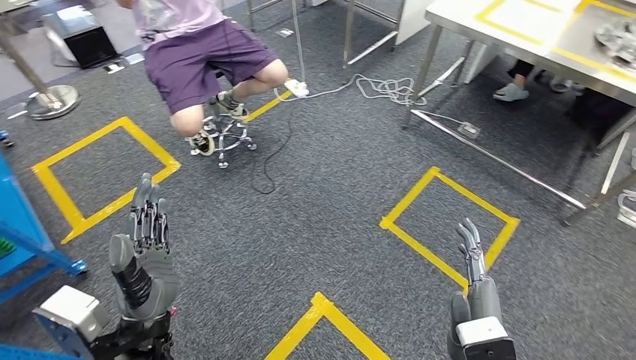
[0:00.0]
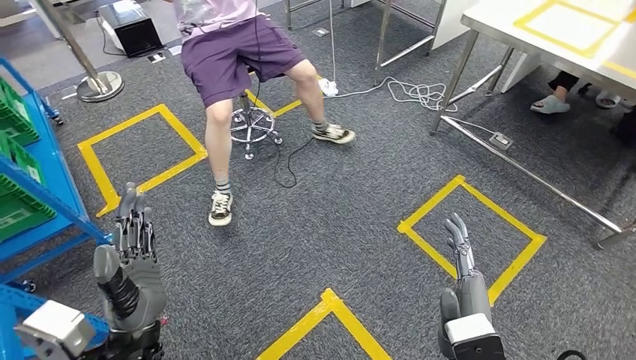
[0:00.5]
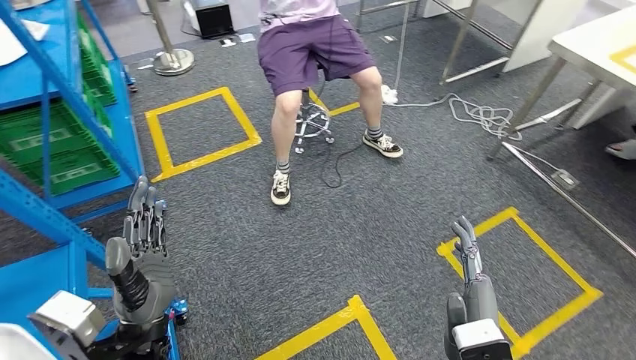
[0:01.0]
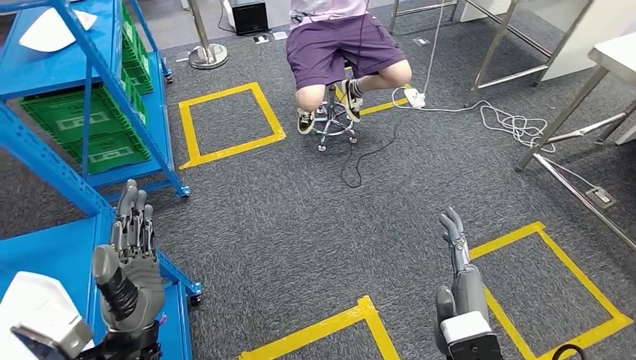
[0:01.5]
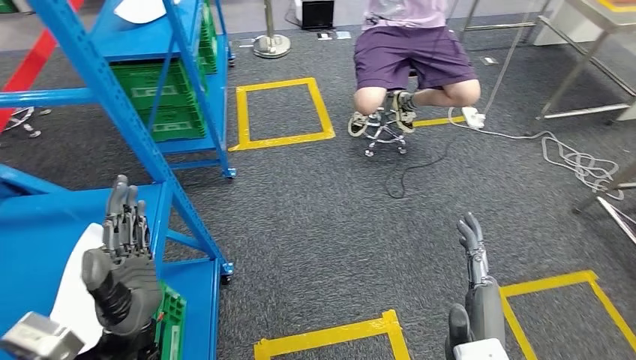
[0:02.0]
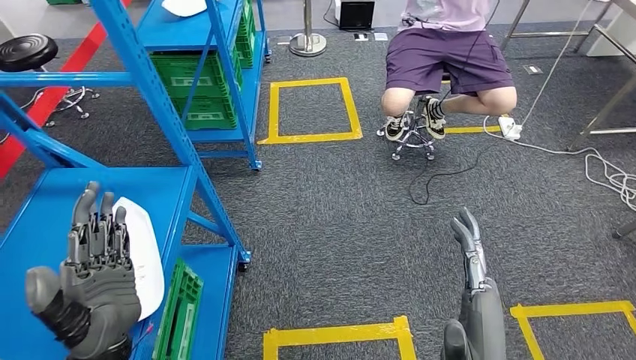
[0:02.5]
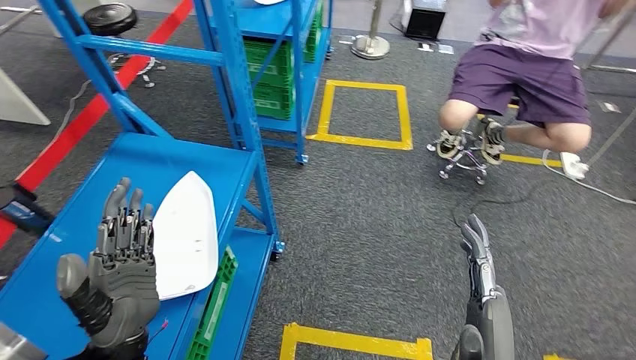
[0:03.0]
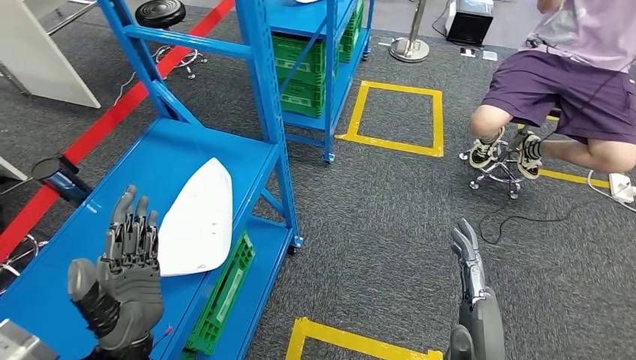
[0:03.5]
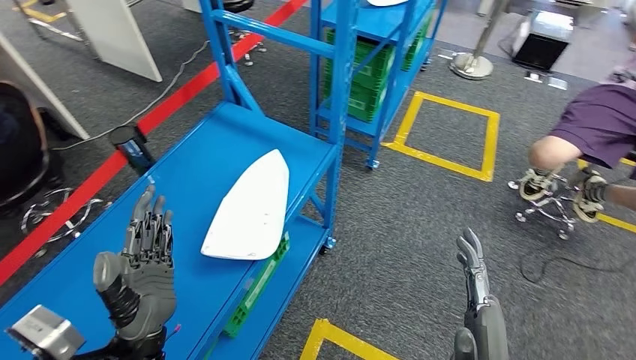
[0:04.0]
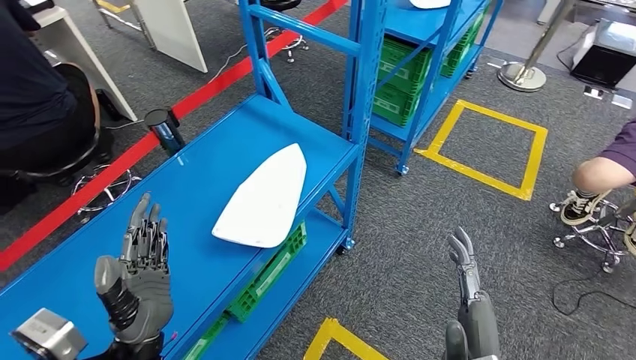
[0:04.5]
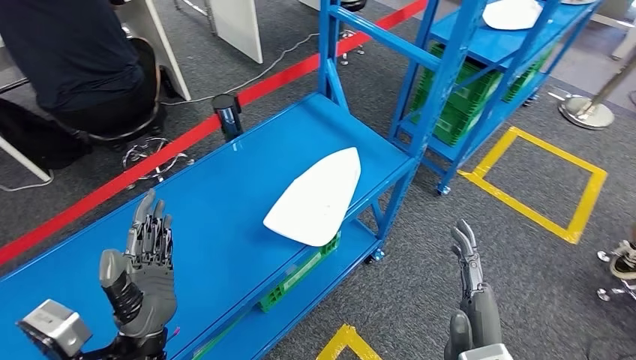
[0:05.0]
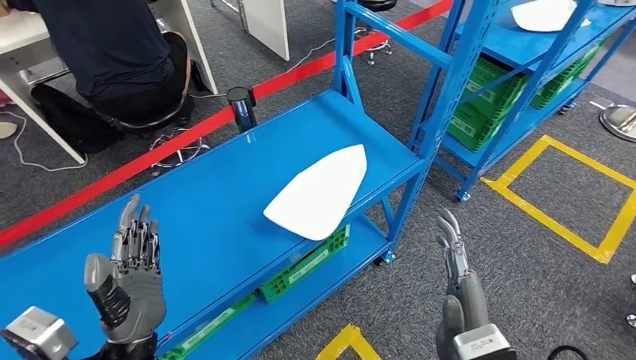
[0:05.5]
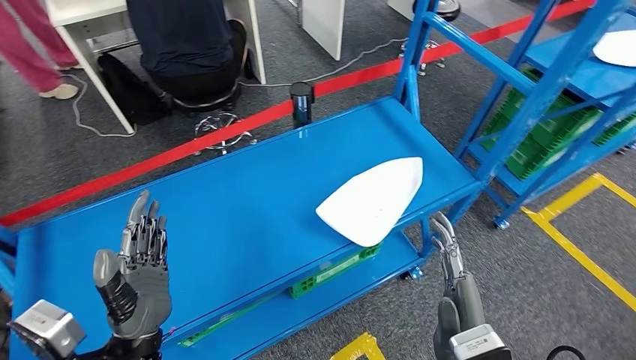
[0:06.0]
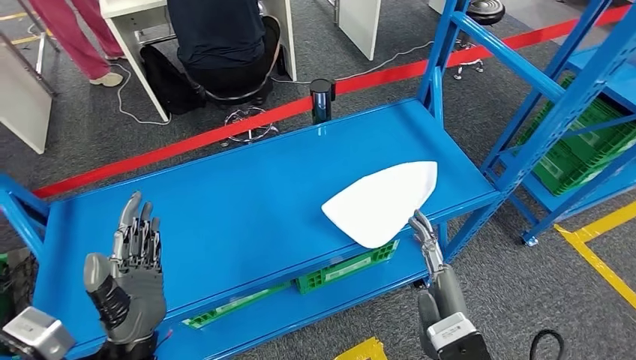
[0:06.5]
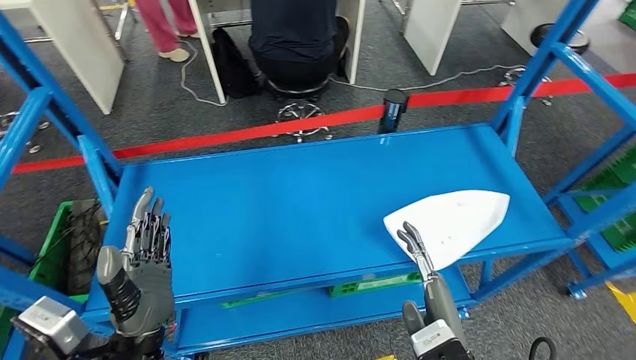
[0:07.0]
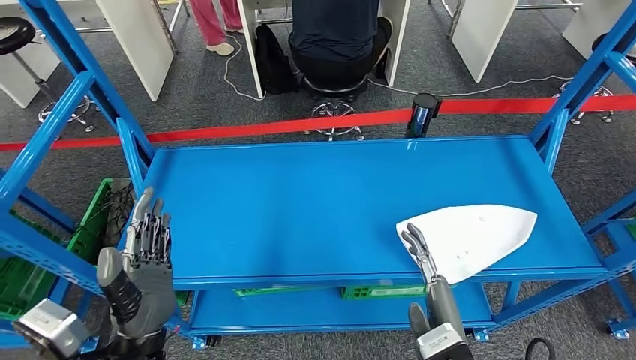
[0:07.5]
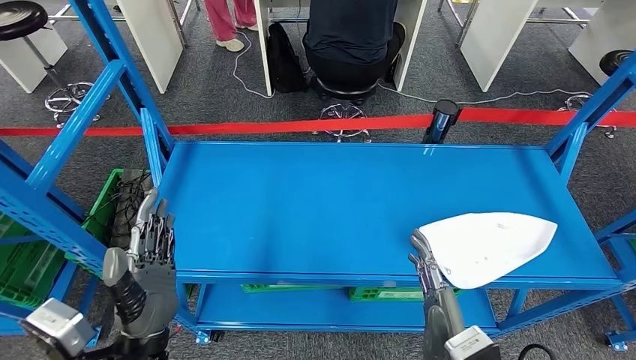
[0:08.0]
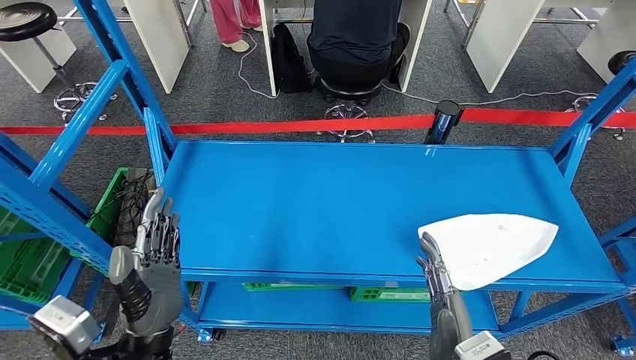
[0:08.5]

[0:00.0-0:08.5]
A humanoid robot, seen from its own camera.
Step, 0:00.0 to 0:08.5: Return to the initial position at the workbench.
